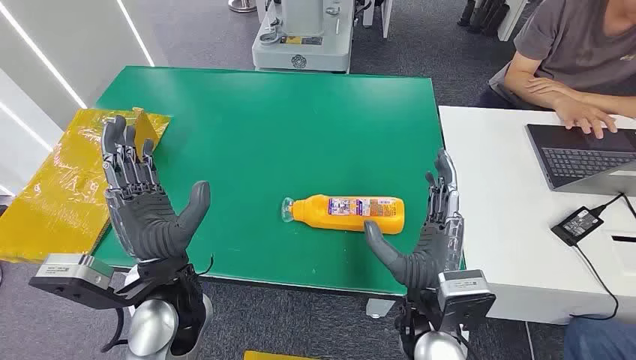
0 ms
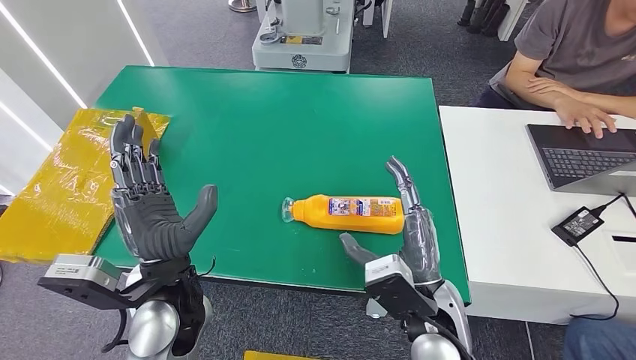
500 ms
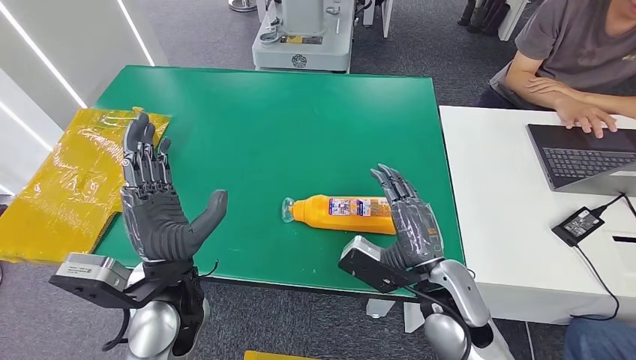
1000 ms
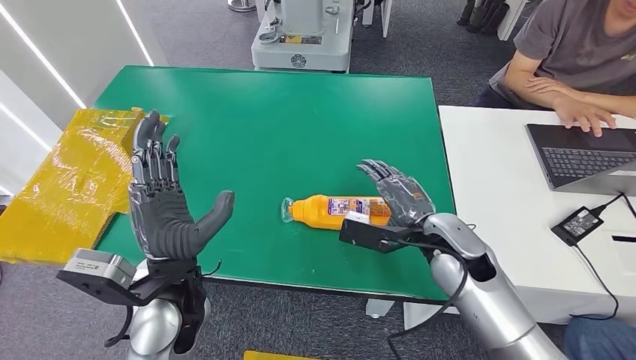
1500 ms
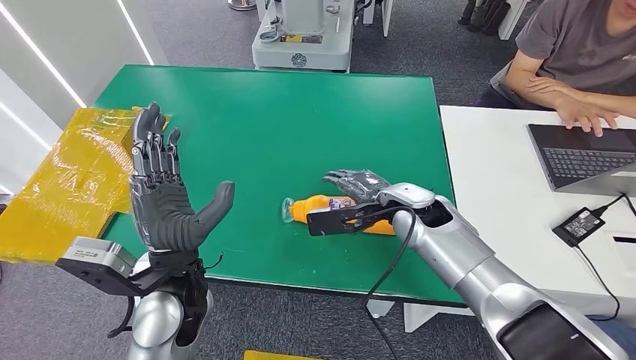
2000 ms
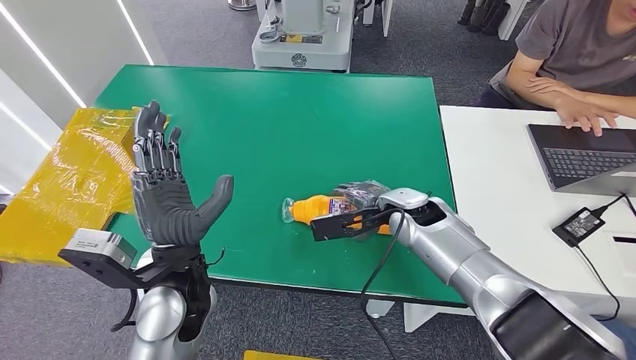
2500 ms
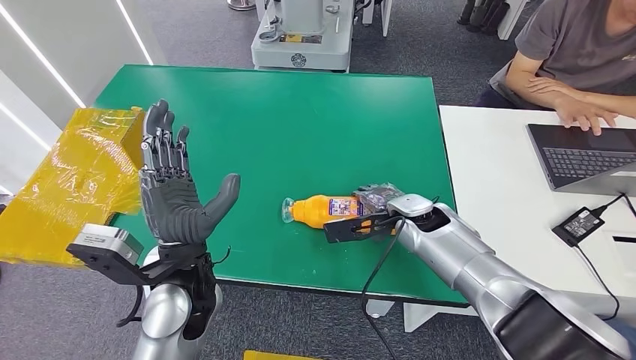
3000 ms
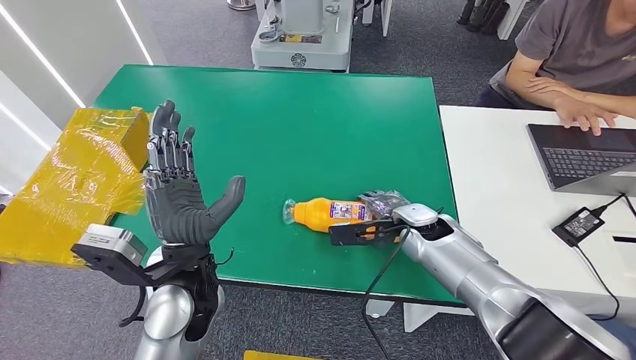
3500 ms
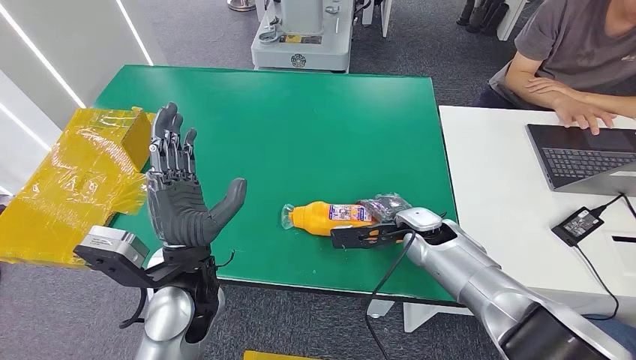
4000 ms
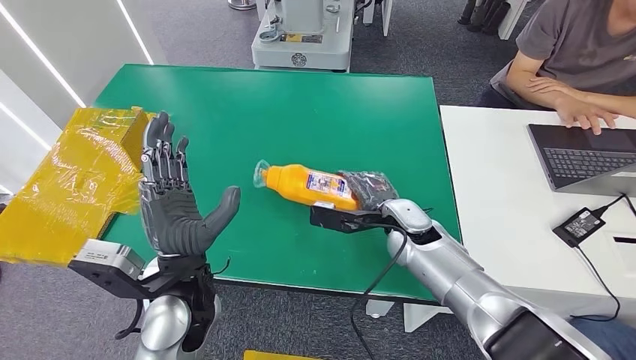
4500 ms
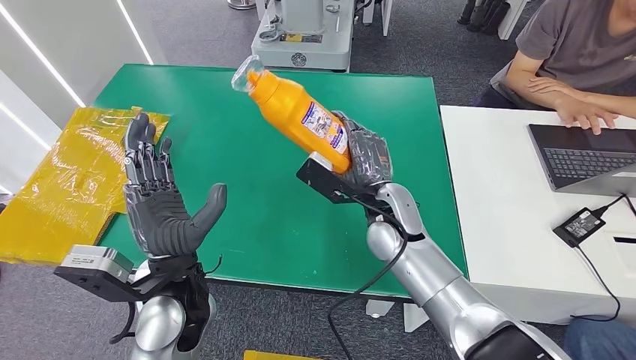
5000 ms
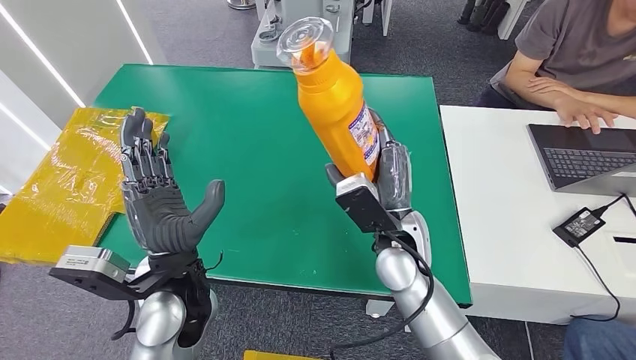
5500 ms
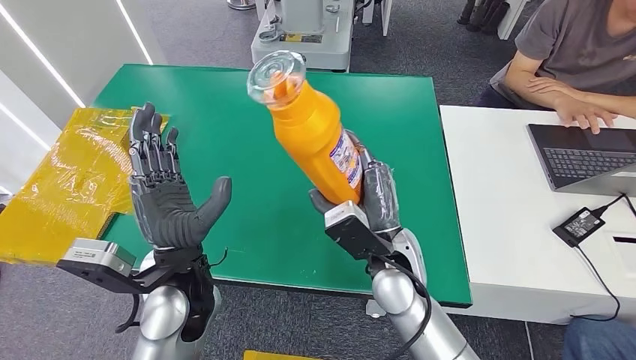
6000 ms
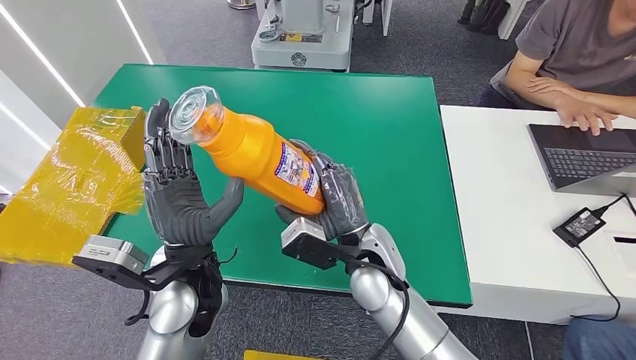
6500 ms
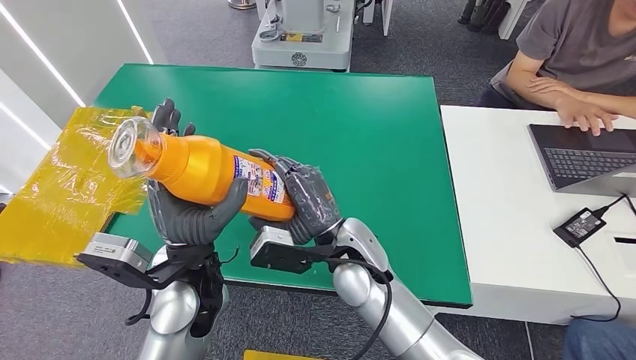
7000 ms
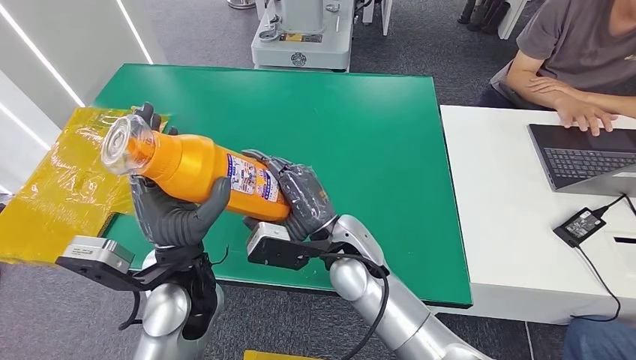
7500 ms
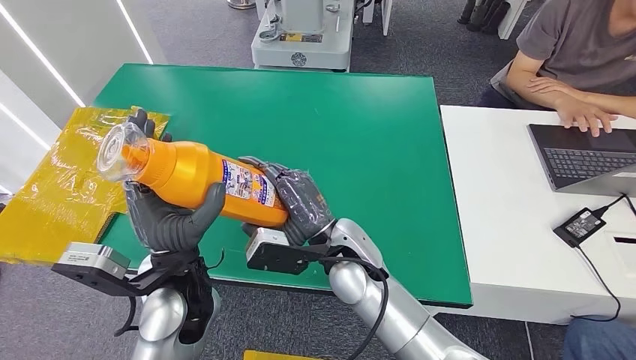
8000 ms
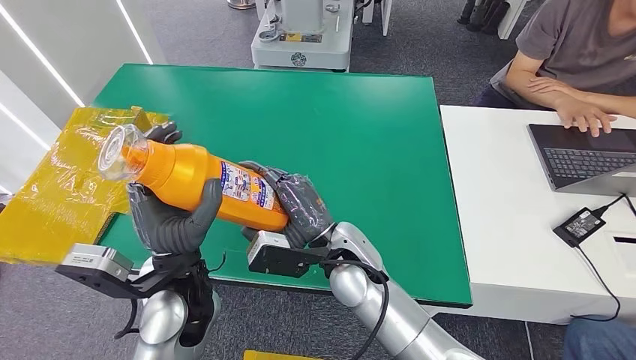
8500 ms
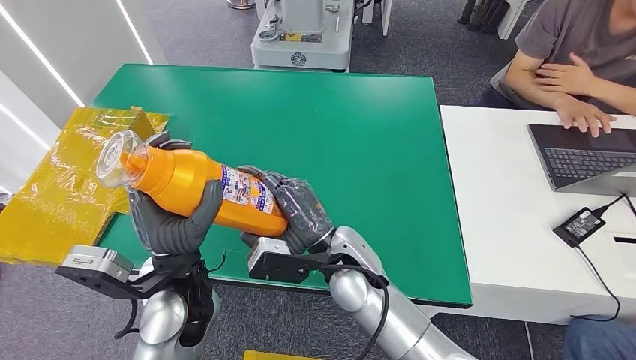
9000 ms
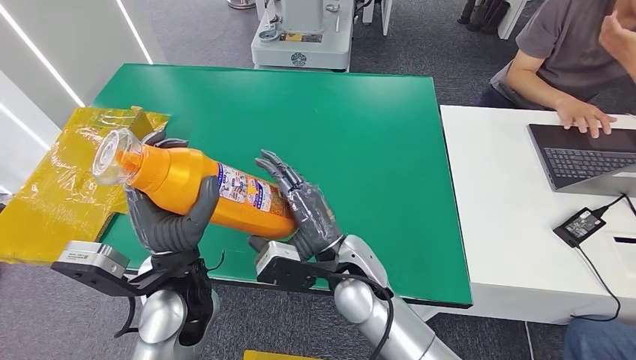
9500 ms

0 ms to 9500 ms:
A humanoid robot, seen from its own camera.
Step, 0 ms to 5000 ms: Pick up the bottle from the table.
2000 ms to 4000 ms: The right hand travels to the right and downward by about 10 cm.
7500 ms to 9500 ms: The hands move only a little.

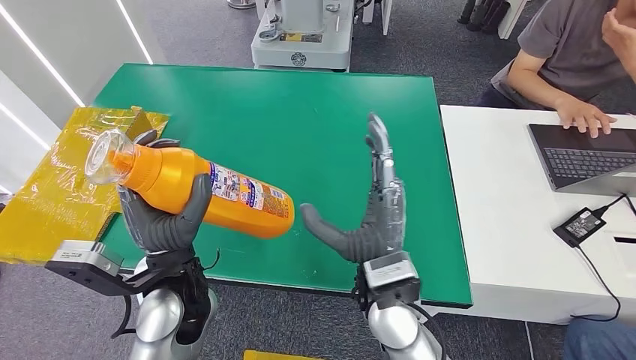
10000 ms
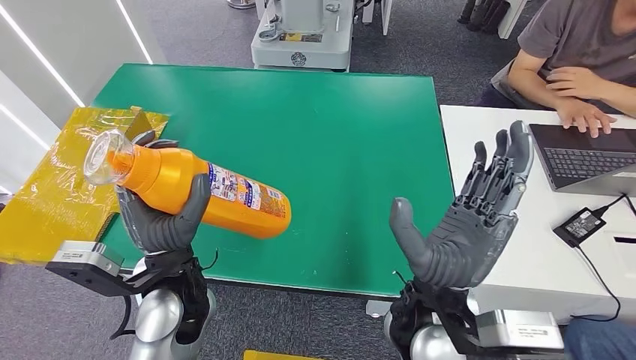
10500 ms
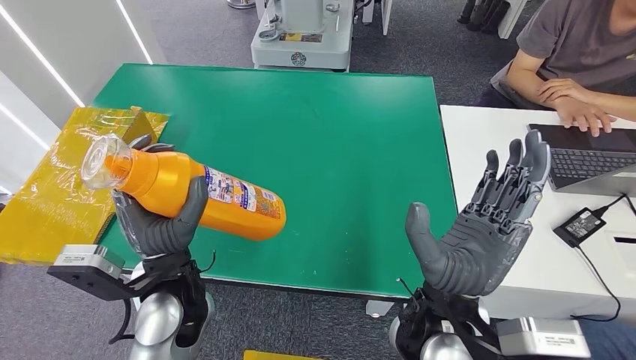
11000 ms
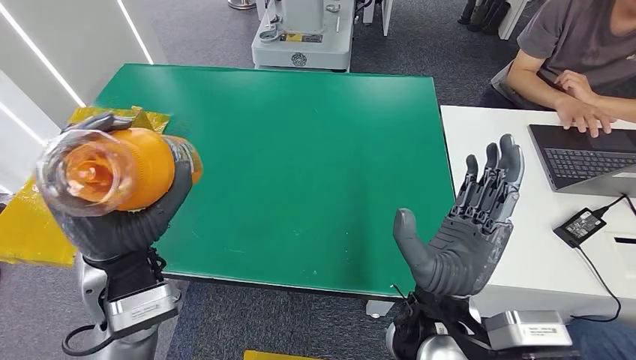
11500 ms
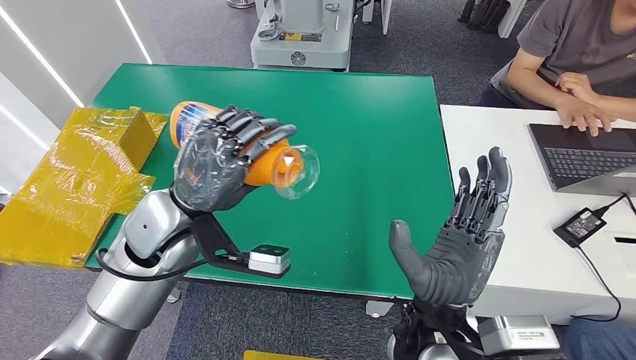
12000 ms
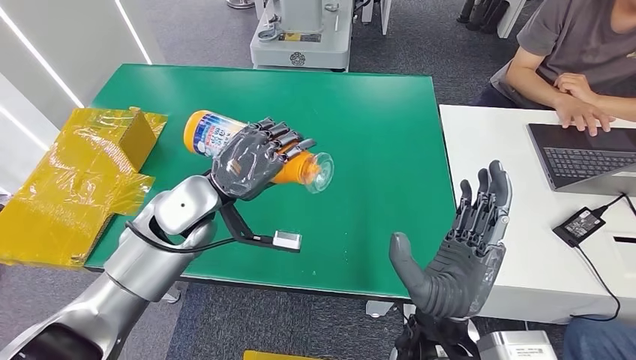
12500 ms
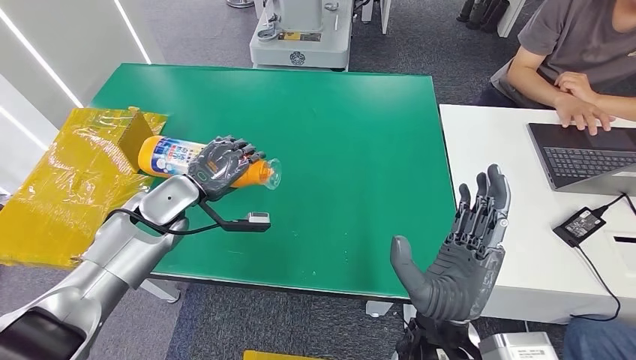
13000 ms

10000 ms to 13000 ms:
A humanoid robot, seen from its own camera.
Step, 10000 ms to 13000 ms: Turn the bottle to the front side.

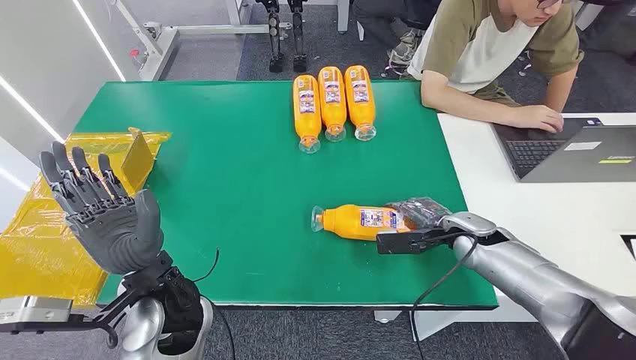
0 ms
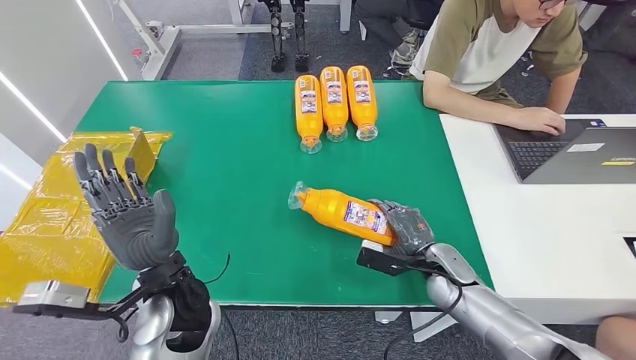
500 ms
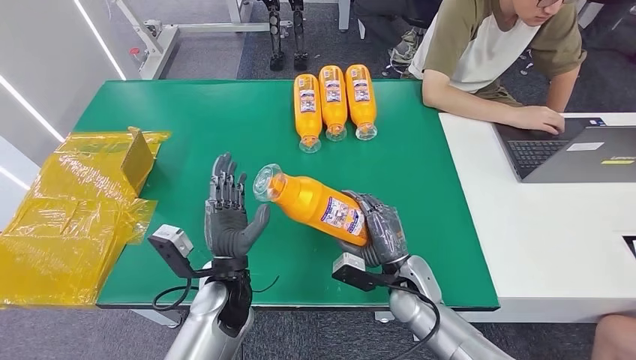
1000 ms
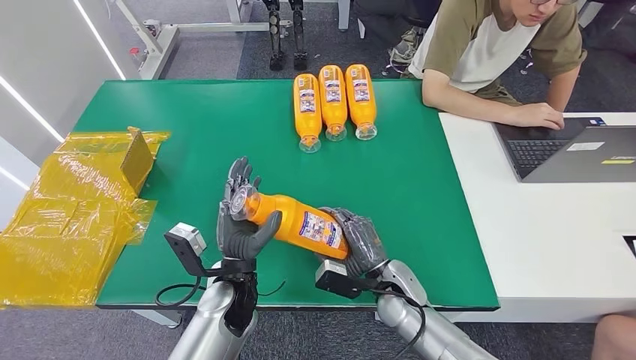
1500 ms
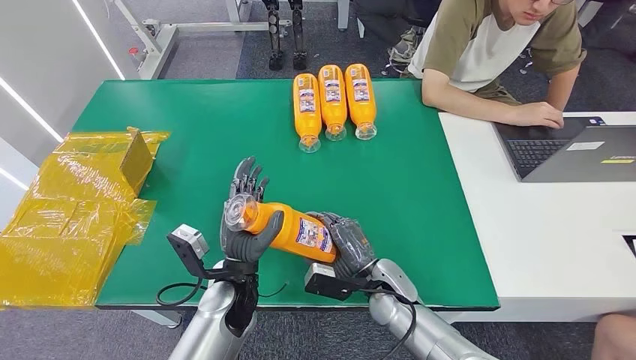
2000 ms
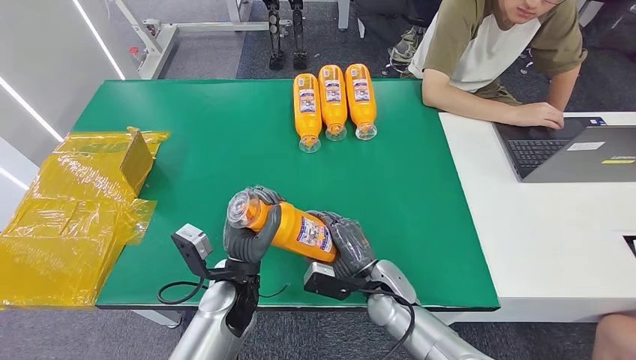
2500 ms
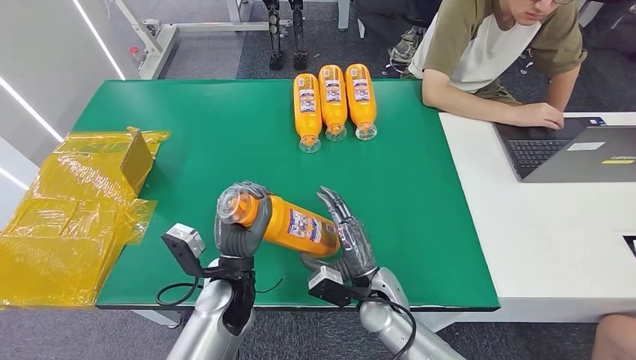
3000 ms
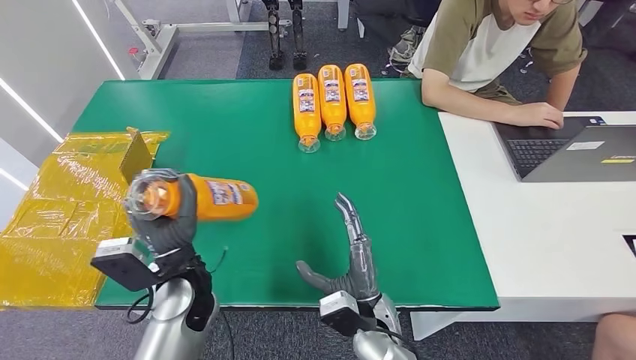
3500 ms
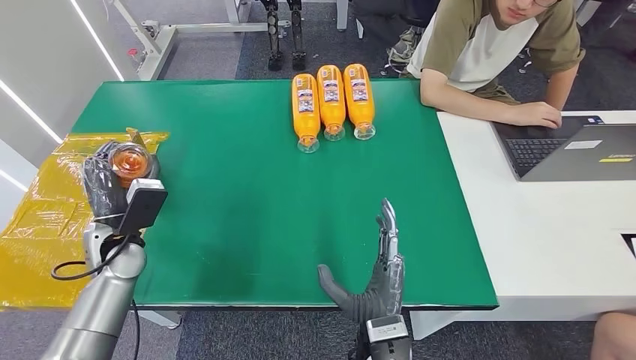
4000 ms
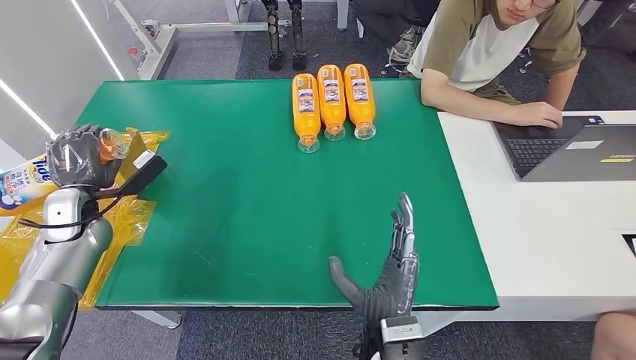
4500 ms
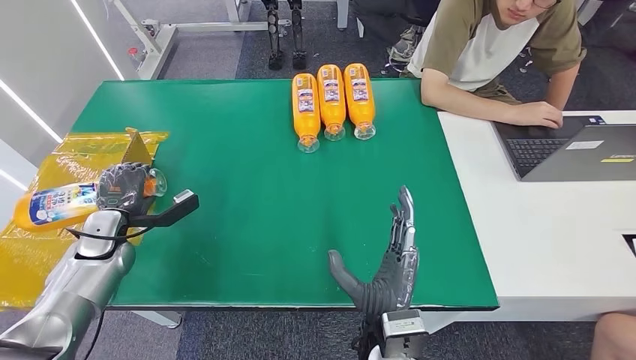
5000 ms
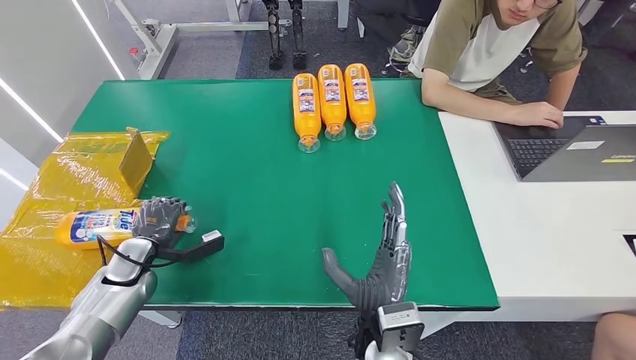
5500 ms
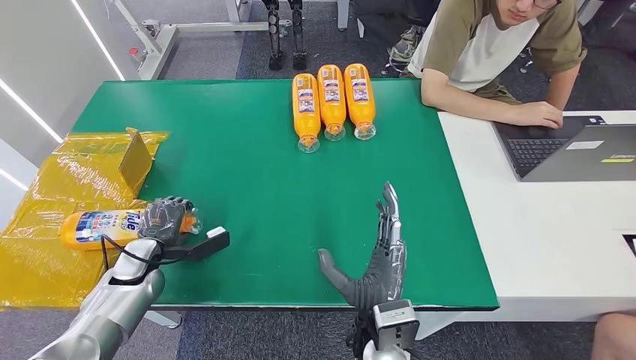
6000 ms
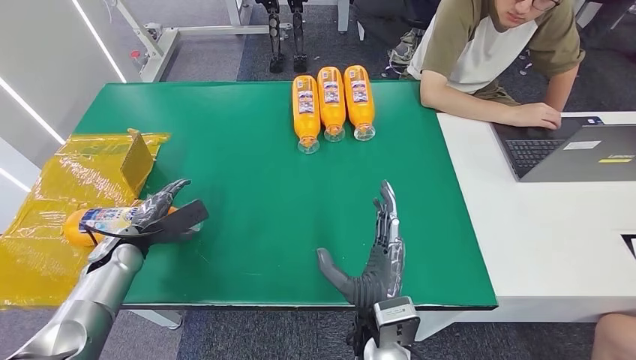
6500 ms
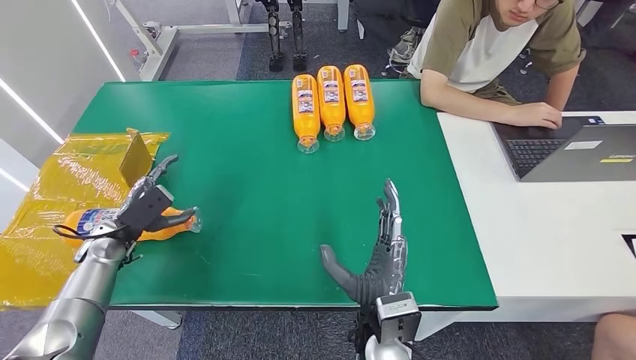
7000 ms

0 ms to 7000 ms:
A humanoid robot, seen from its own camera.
Step, 0 ms to 2000 ms: Pick up the bottle from the table.
Step, 2500 ms to 7000 ms: Turn the bottle to the front side.
2000 ms to 3500 ms: The right hand goes approximately 5 cm backward, while the left hand goes about 5 cm to the left.
3500 ms to 5000 ms: The left hand shifts about 25 cm to the left; the right hand is displaced upward by roughly 5 cm.
